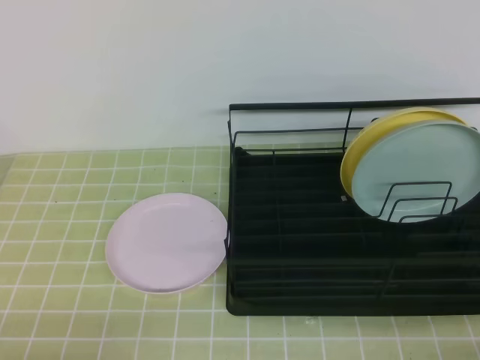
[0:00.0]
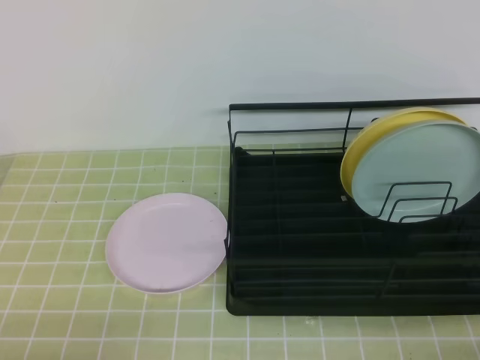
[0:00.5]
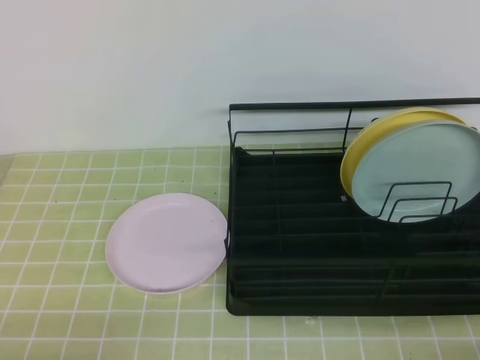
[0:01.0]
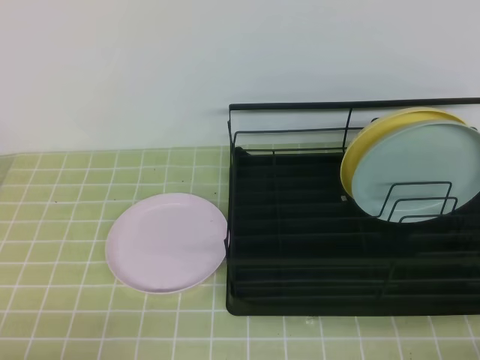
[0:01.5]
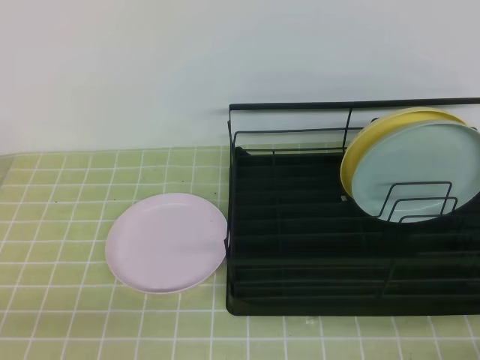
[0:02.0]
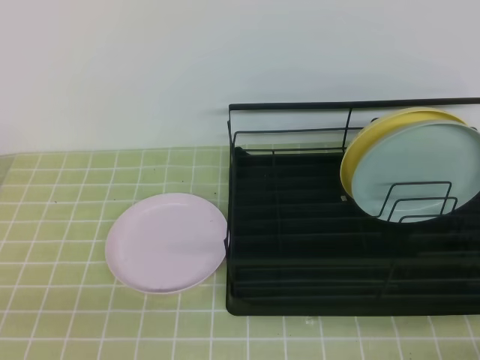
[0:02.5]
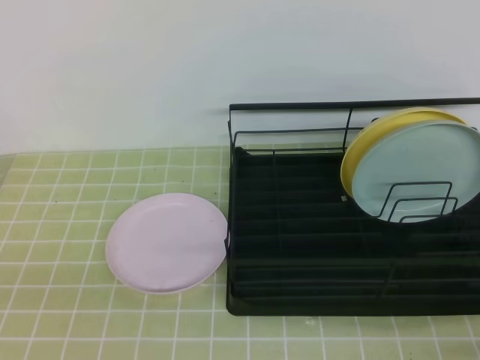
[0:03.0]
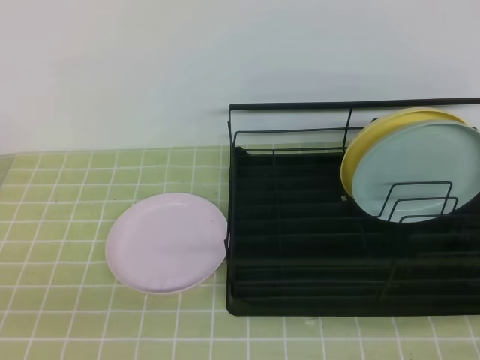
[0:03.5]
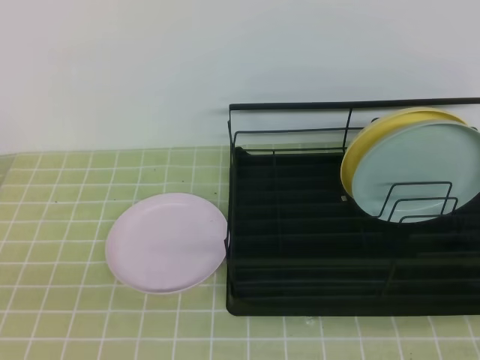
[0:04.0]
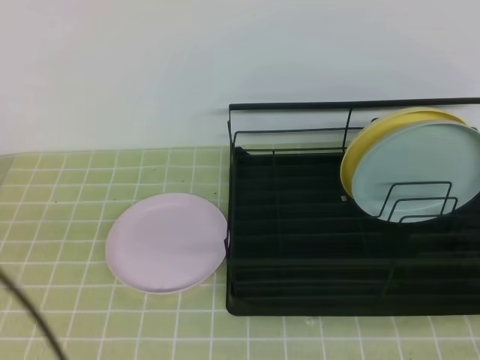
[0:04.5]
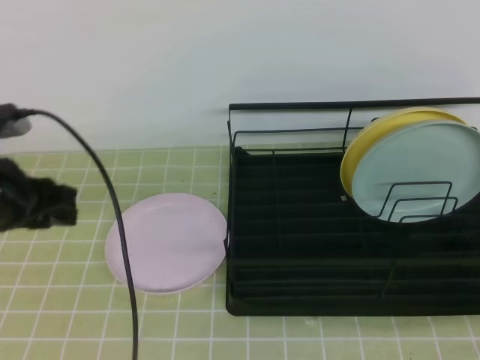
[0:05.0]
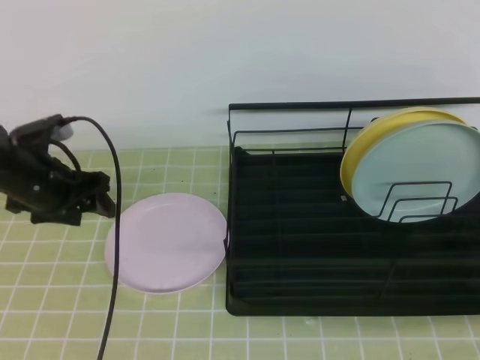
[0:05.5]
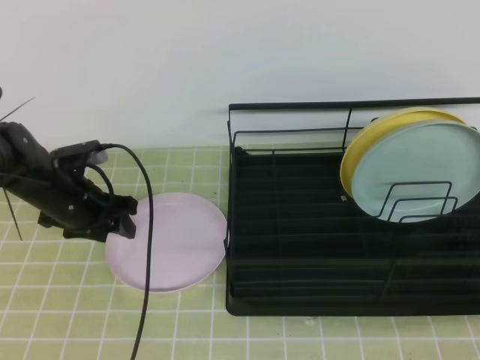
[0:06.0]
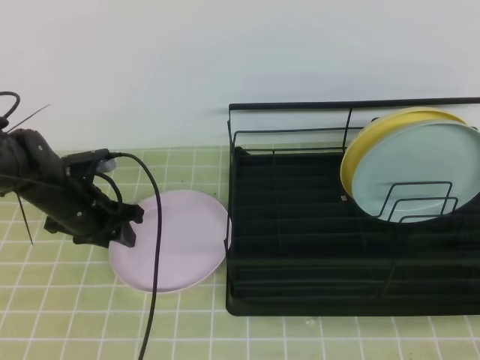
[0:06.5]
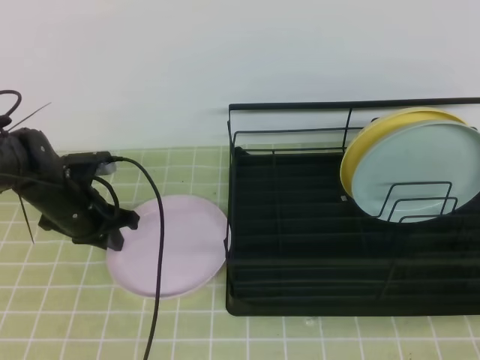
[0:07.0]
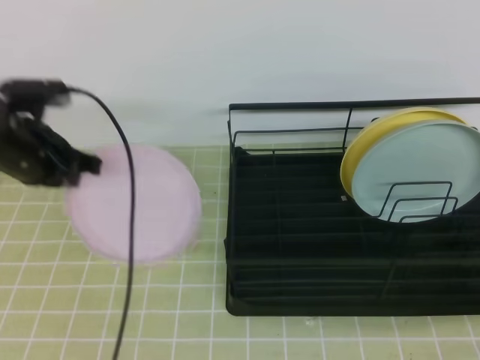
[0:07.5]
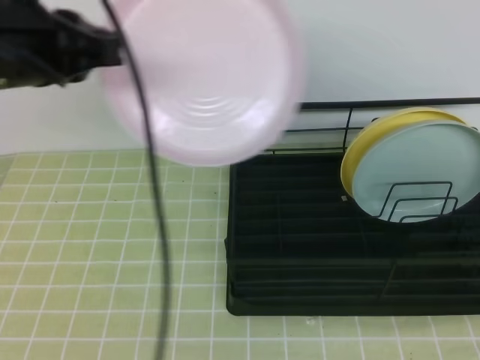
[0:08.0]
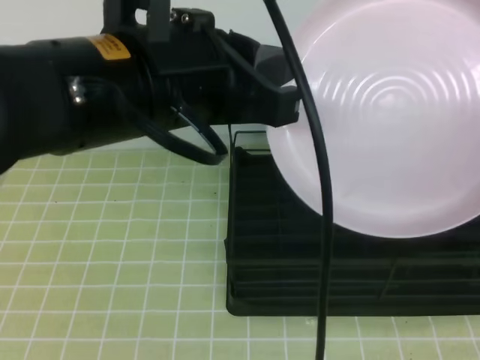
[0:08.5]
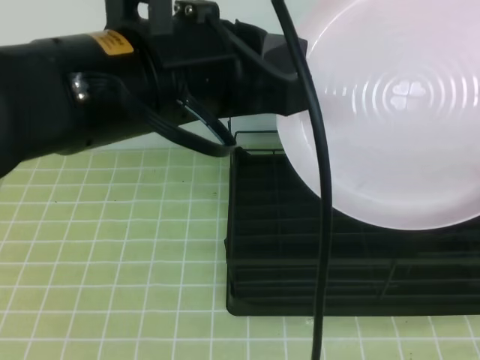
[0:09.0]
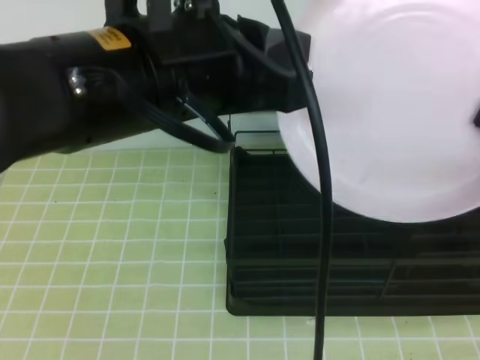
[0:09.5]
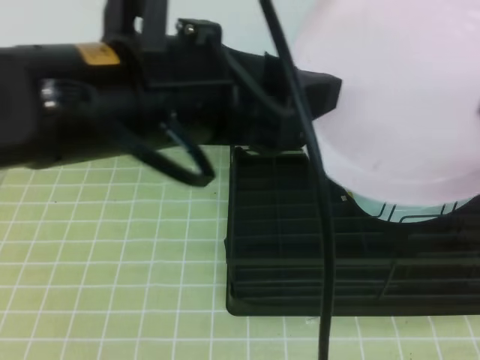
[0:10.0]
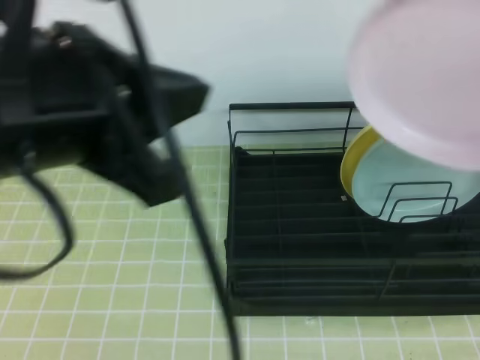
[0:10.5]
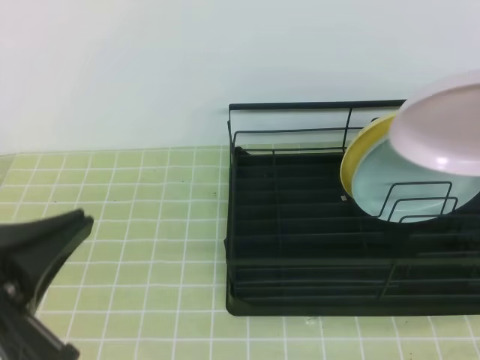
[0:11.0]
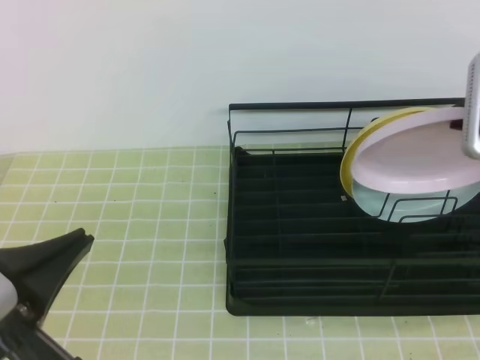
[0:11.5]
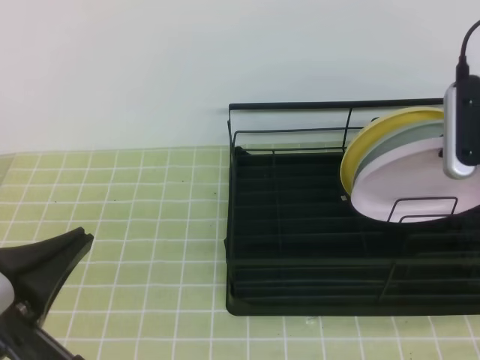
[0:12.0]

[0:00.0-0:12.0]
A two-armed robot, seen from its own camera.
Step, 0:00.0 to 0:05.5: Left grab the pink plate.
Step, 0:08.0 to 0:10.0: Right place it at the front of the shelf.
0:04.0 to 0:06.0: The left gripper travels forward by roughly 35 cm, and opens up.
0:06.0 to 0:08.0: The left gripper heads upward and backward, covering roughly 30 cm, and closes its fingers, while the right gripper goes about 5 cm upward.
0:08.0 to 0:10.0: The left gripper moves to the right and backward, some 10 cm, and opens. Meanwhile the right gripper shifts roughly 10 cm forward, and opens, then closes once more.
0:10.0 to 0:12.0: The left gripper travels downward, to the left and backward by approximately 20 cm, and closes up. The right gripper moves forward and downward, about 15 cm.

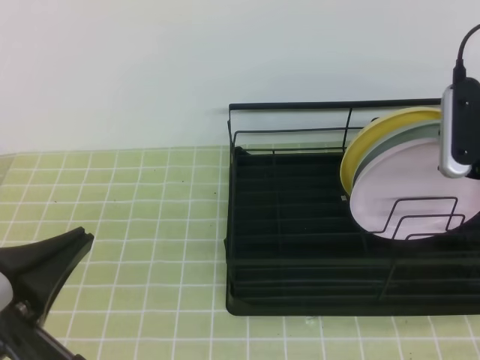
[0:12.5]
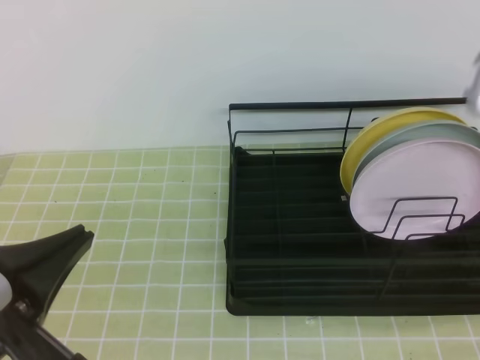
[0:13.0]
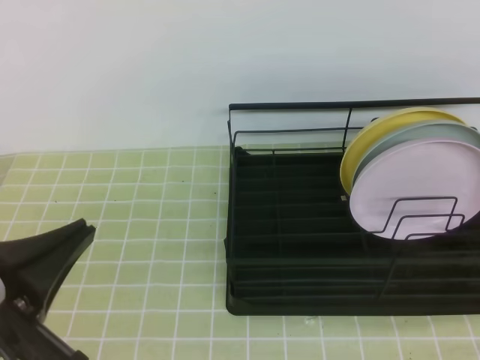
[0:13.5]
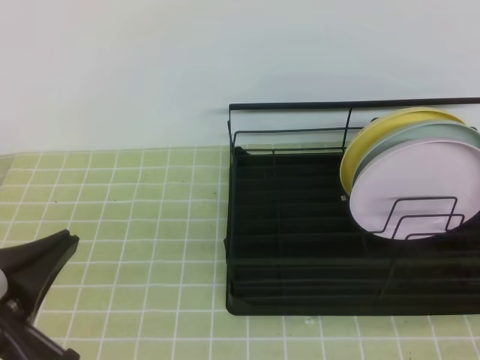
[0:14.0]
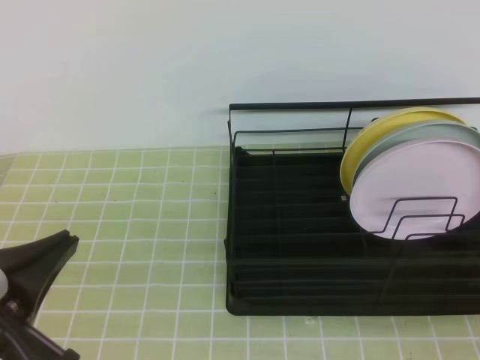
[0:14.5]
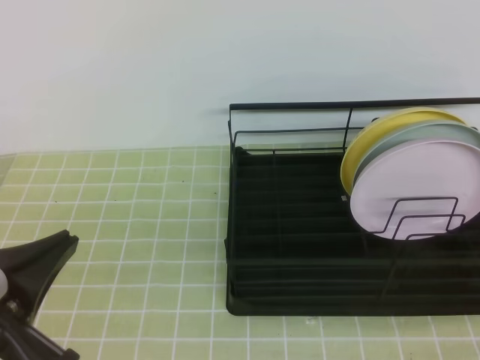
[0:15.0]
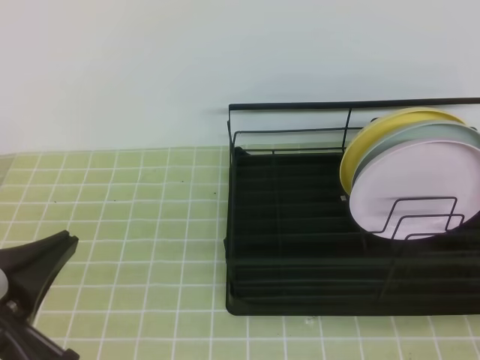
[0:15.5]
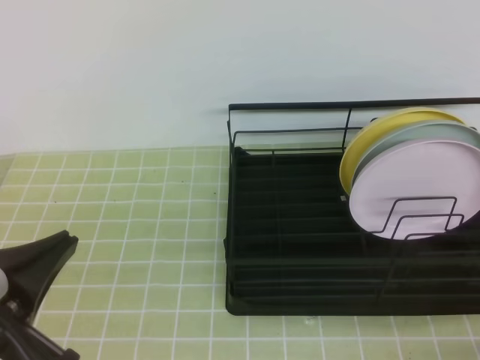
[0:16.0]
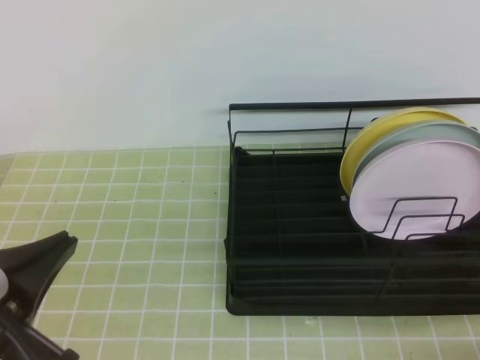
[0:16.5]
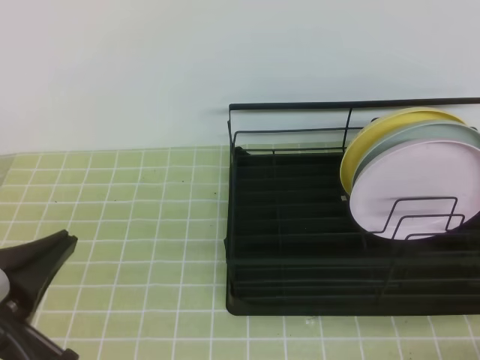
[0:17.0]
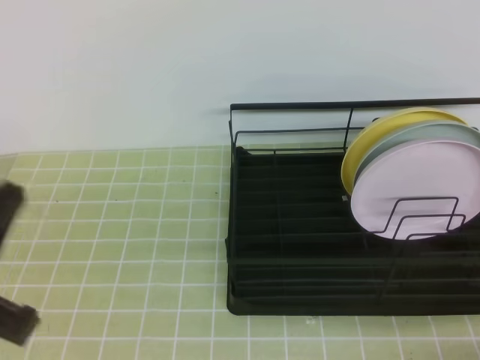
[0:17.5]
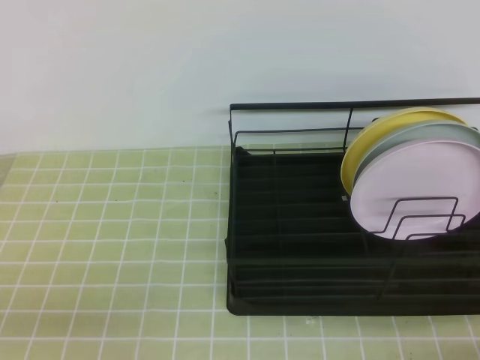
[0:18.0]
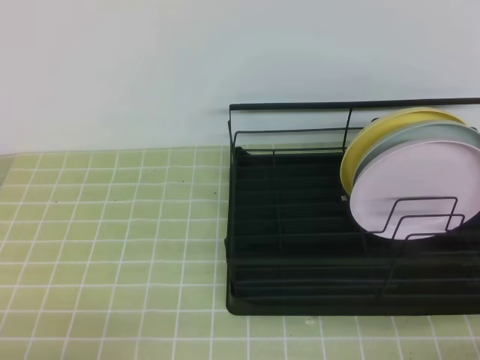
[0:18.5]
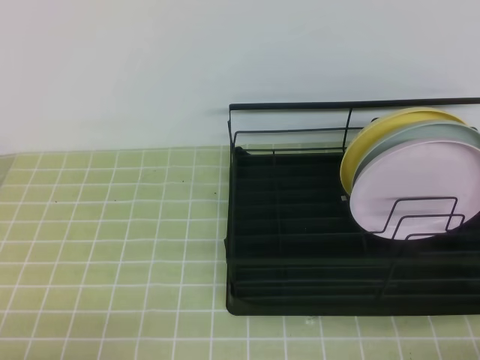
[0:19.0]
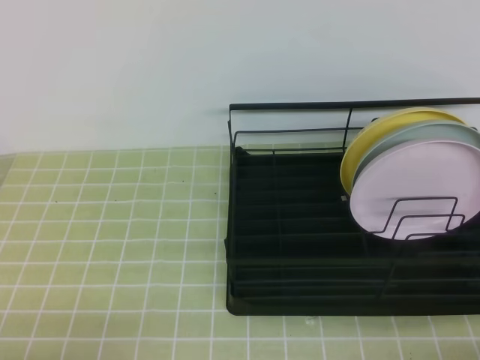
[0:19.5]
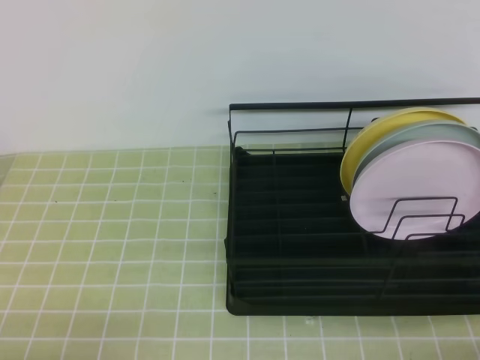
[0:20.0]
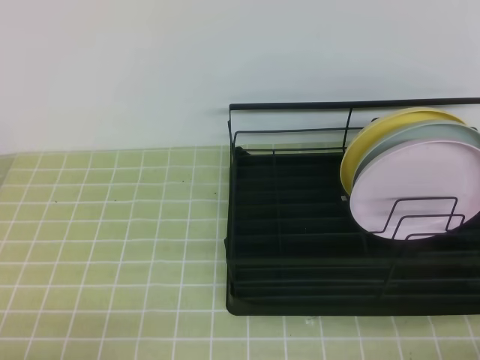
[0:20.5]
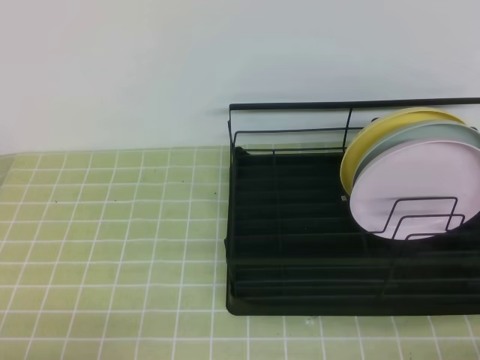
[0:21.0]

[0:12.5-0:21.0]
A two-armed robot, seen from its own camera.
0:12.5 to 0:14.5: The right gripper travels backward by approximately 25 cm, and closes its fingers.
0:16.5 to 0:19.0: The left gripper moves downward and to the left, approximately 15 cm.
0:19.0 to 0:21.0: The two grippers keep their place.
